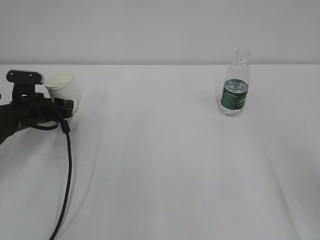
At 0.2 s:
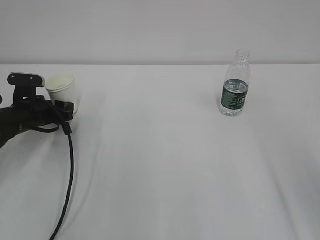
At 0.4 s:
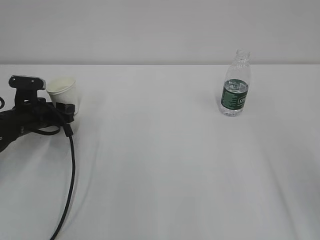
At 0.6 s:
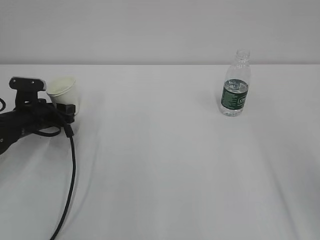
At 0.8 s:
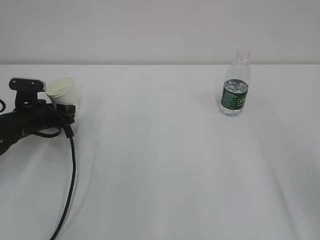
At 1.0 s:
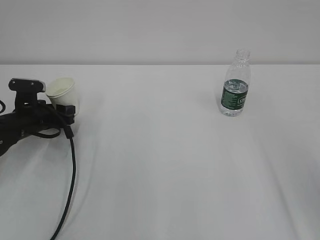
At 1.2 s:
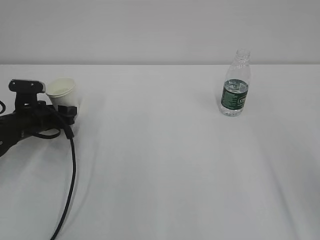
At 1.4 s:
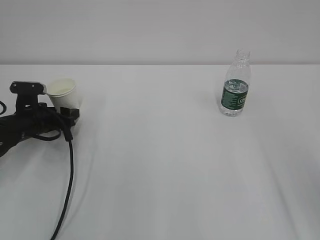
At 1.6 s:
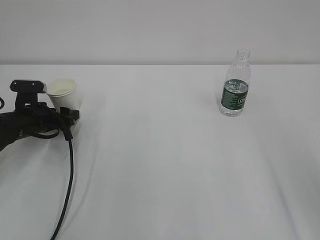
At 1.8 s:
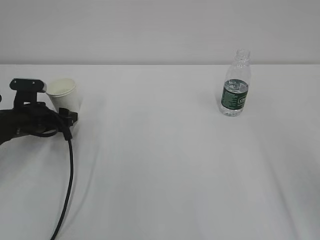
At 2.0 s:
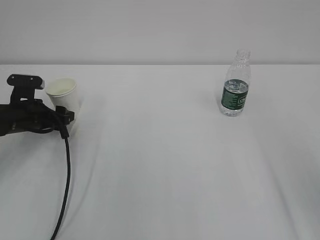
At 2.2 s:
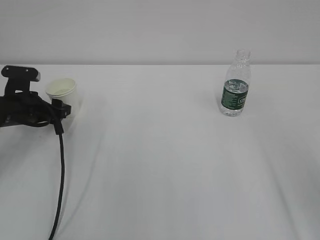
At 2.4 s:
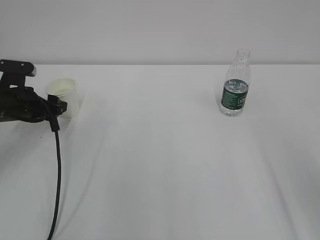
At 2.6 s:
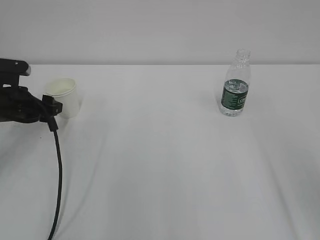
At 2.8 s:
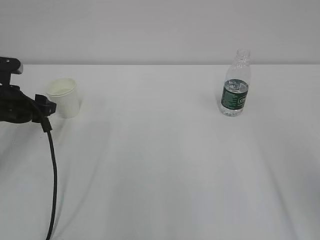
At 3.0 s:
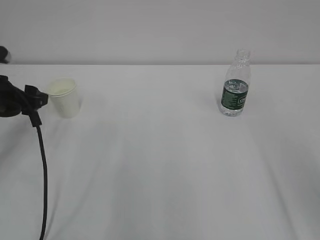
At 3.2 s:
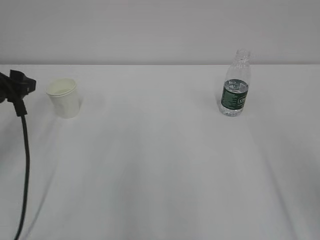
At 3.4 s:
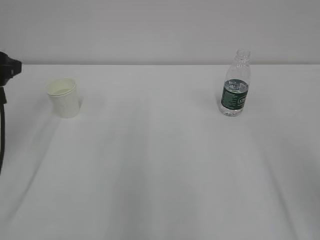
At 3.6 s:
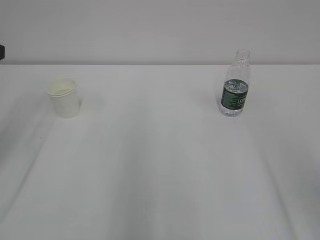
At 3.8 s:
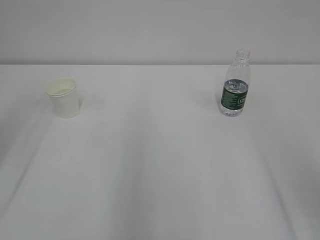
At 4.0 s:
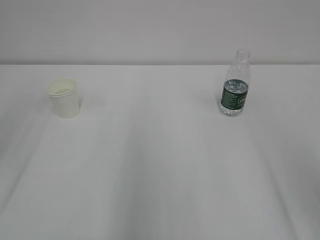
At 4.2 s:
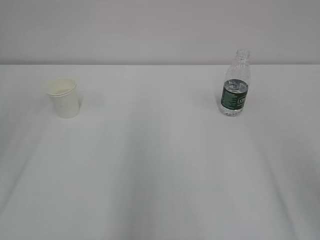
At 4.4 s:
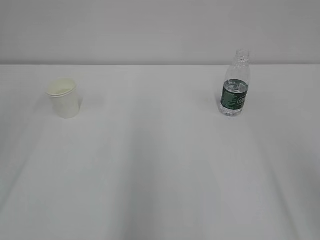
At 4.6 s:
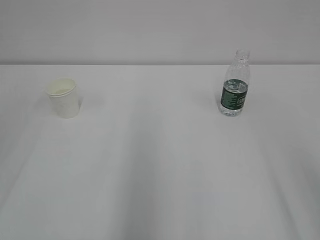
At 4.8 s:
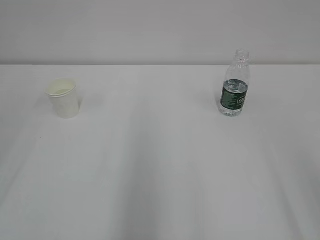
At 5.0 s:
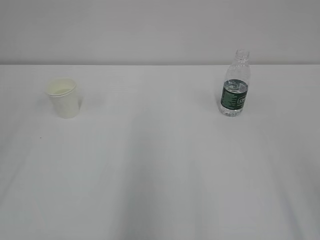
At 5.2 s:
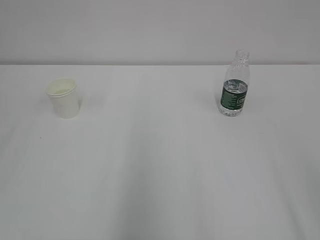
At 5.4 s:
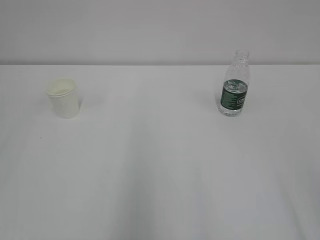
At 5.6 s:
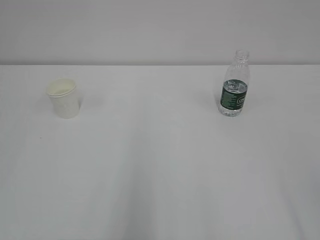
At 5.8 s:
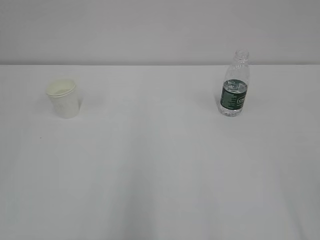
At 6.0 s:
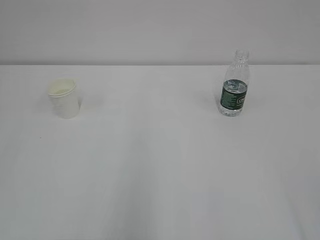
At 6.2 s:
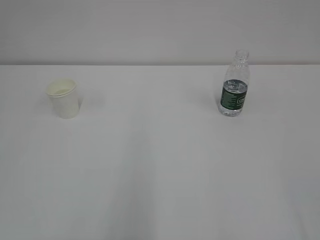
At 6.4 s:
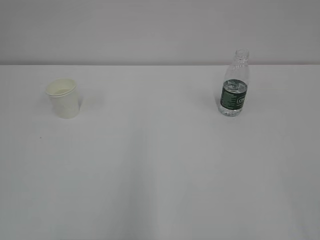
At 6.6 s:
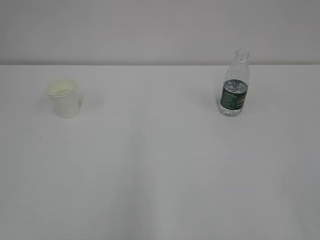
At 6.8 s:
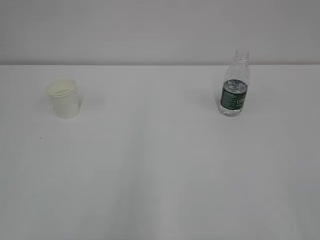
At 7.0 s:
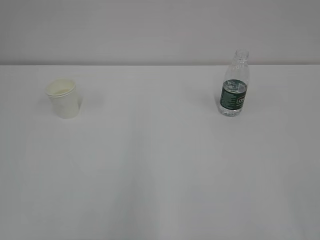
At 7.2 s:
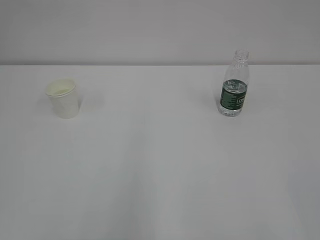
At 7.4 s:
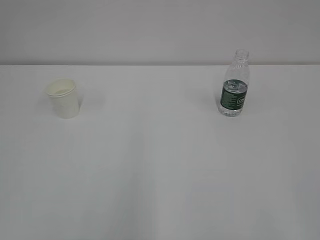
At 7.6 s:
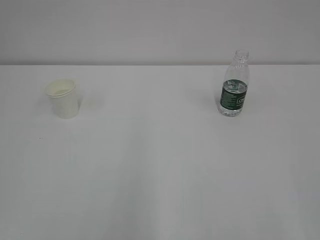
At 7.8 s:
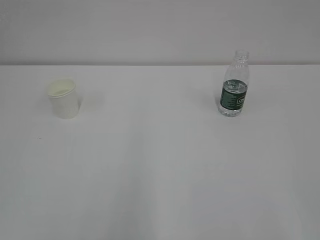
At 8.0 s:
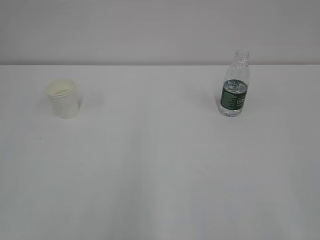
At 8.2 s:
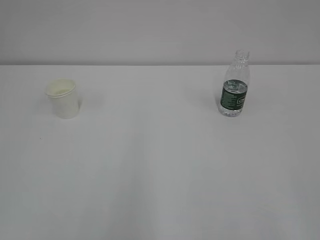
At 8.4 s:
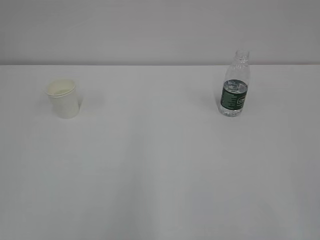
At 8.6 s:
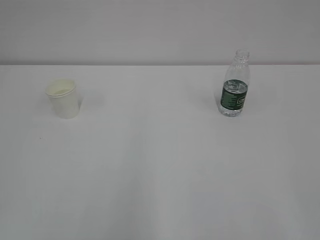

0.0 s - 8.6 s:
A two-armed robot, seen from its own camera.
0.0 s - 1.4 s: The left gripper opens.
1.4 s - 2.8 s: The left gripper is displaced upward by roughly 10 cm.
2.8 s - 4.4 s: The left gripper goes about 25 cm upward and backward.

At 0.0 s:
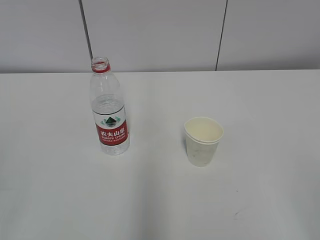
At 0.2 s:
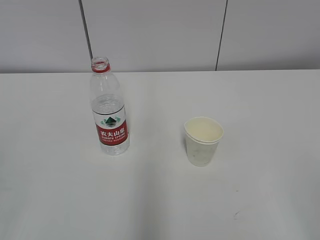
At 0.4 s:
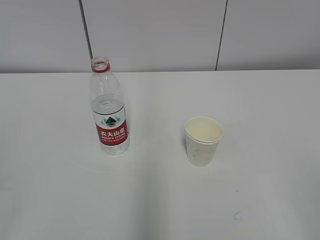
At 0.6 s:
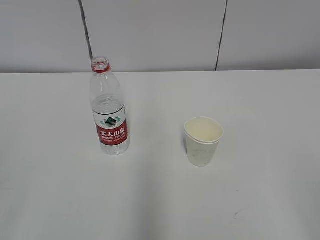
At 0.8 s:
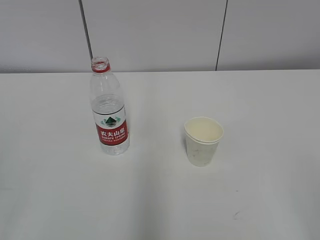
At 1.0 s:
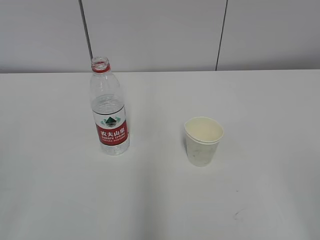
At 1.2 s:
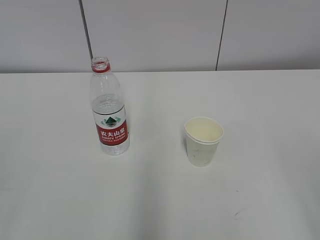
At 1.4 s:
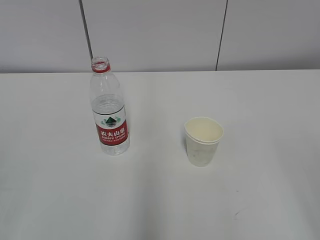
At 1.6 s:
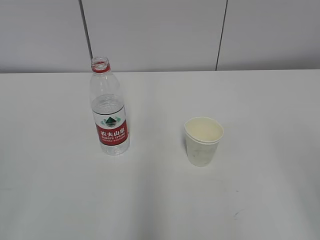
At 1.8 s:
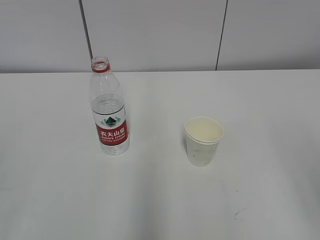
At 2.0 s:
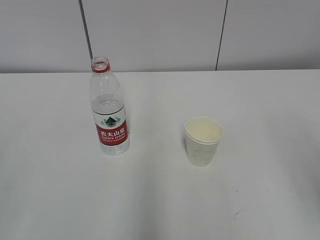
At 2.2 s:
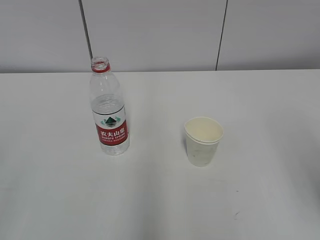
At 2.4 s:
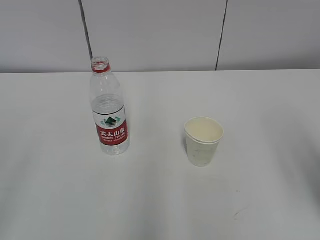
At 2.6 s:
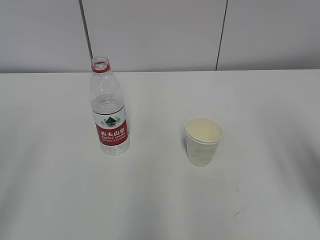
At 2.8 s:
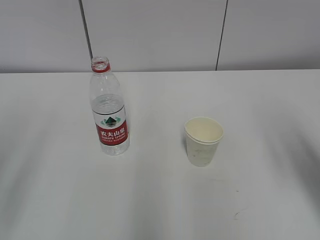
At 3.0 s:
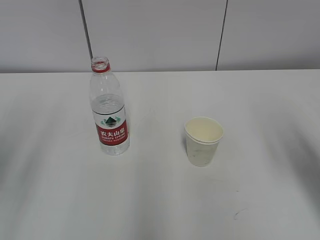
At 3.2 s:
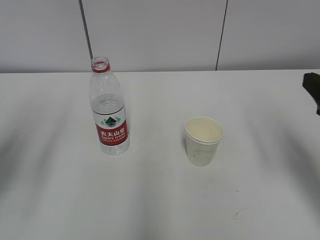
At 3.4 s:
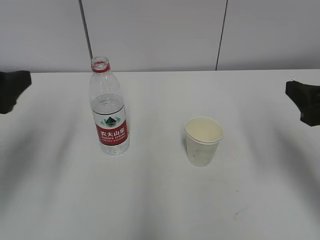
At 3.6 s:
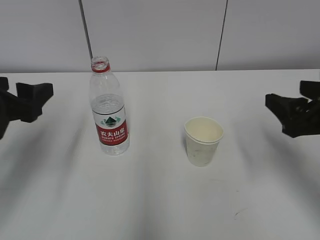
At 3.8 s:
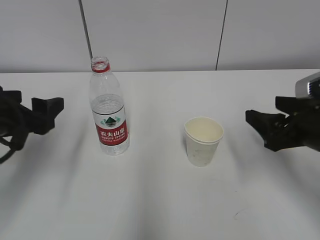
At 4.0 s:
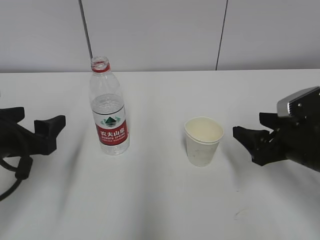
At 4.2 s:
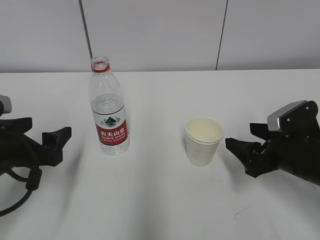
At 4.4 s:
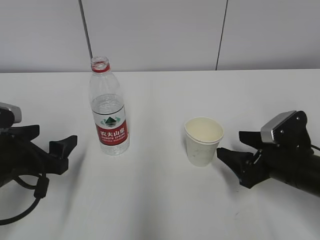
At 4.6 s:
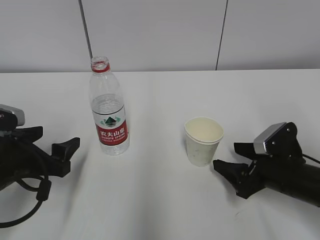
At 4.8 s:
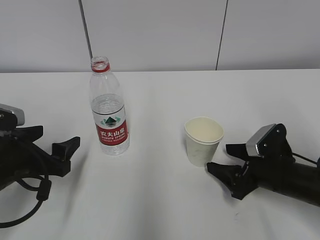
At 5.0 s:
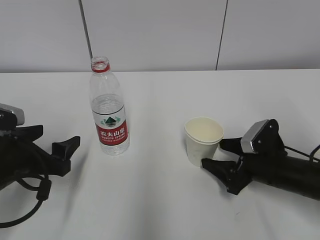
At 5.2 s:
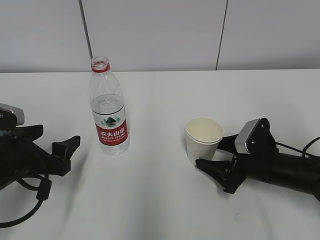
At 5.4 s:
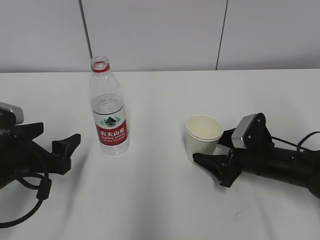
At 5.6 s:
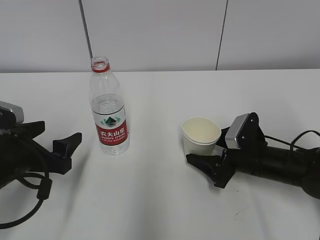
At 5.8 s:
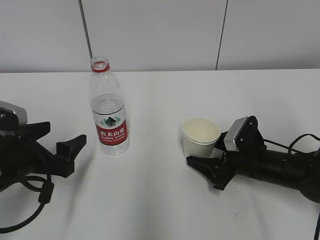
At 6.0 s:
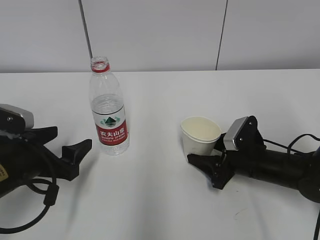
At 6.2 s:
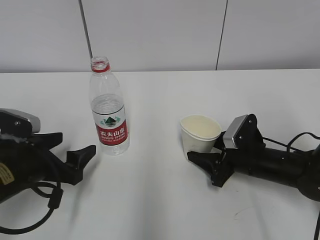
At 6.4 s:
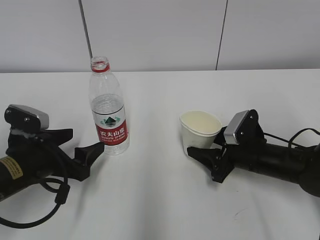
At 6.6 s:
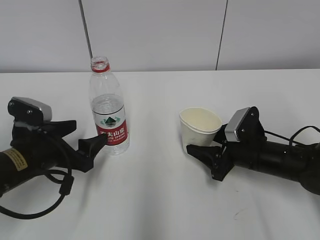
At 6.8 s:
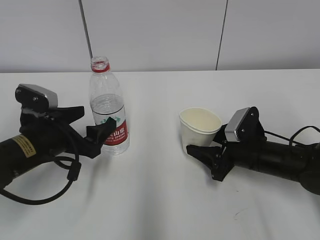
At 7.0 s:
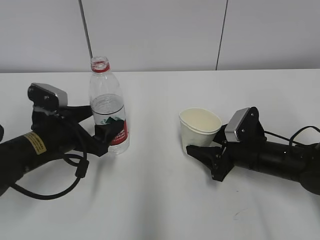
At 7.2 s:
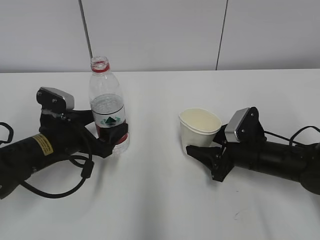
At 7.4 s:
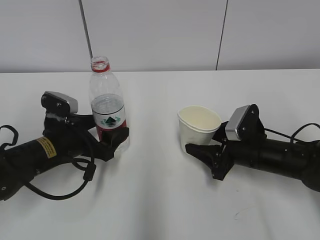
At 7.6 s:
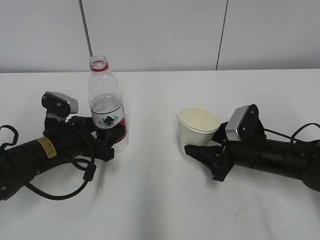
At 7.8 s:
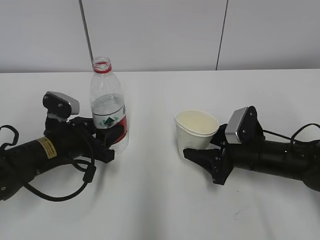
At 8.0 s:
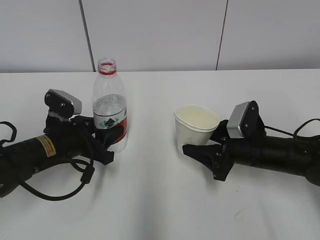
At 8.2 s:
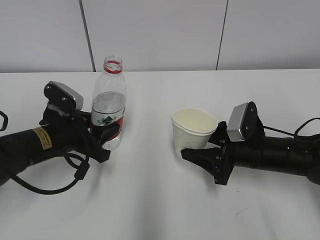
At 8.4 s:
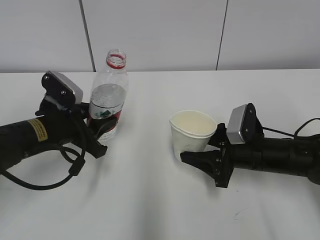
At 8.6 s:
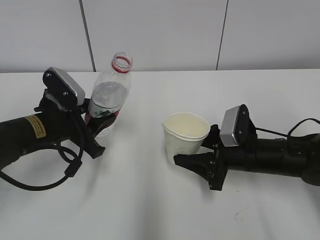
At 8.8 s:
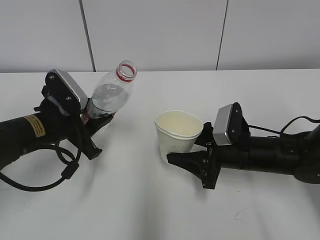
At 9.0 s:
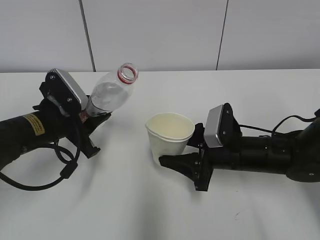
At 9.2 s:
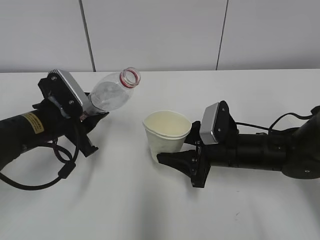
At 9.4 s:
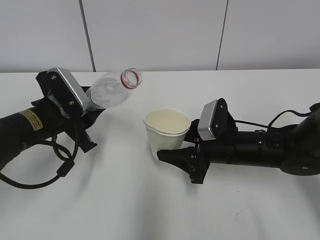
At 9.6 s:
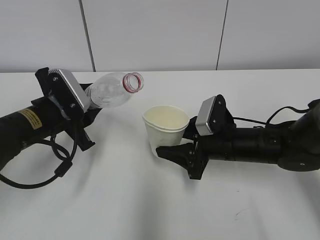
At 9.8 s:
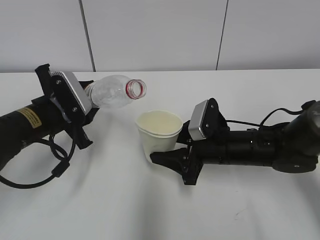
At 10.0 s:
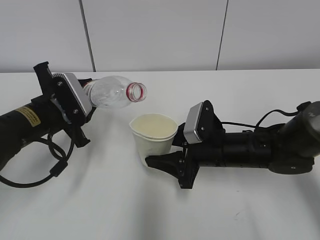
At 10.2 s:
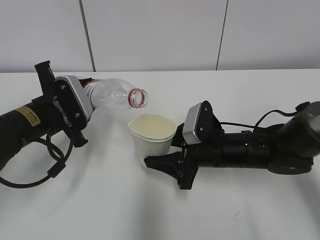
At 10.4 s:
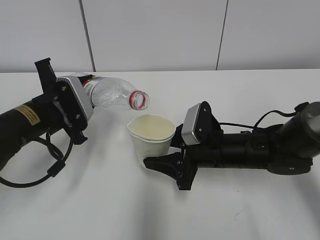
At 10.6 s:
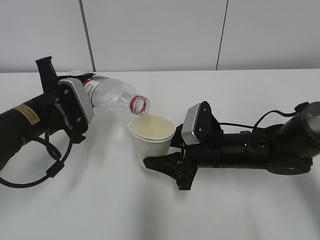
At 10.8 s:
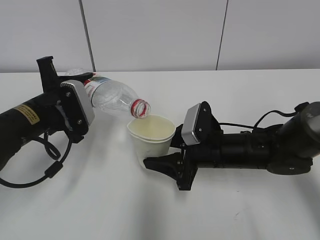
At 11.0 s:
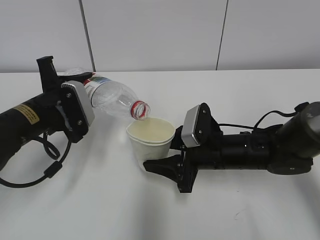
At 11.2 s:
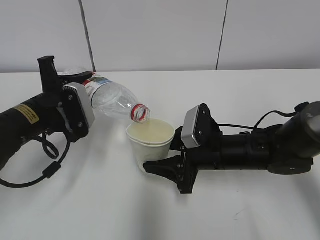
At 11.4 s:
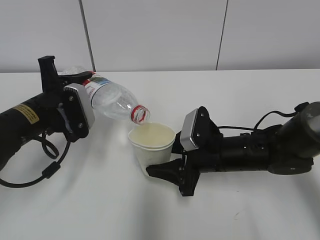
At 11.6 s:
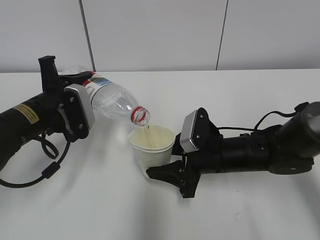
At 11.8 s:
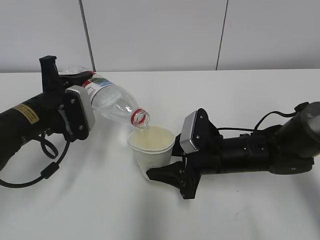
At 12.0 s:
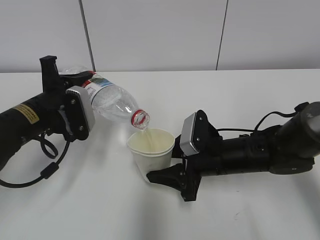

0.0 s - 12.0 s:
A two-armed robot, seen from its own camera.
Step, 0.0 s - 5.0 s: Grab the paper cup with the right hand.
Step, 5.2 s - 6.4 s: Grab the water bottle with the left hand.
Step, 6.6 s - 9.4 s: Lift the paper cup with the right hand.
1.6 s - 3.0 s: The right gripper heads forward, covering approximately 15 cm.
3.0 s - 4.4 s: Both grippers move downward and forward, approximately 20 cm.
4.4 s - 6.0 s: The right gripper shifts about 5 cm forward and downward, and closes up.
6.0 s - 7.6 s: The left gripper goes some 5 cm forward.
7.6 s - 9.0 s: The right gripper shifts by approximately 5 cm. Meanwhile the left gripper heads upward, covering some 5 cm, and closes up.
10.4 s - 12.0 s: There are only small adjustments of the grippers.

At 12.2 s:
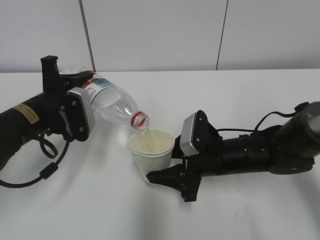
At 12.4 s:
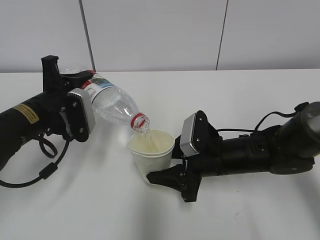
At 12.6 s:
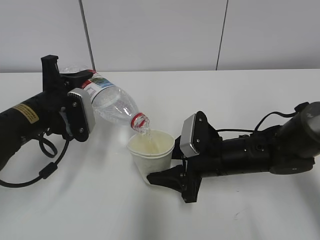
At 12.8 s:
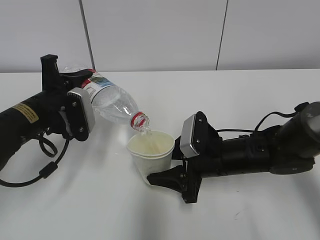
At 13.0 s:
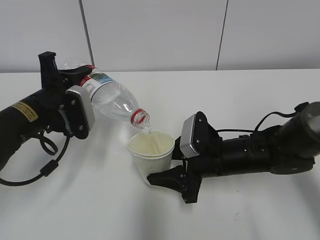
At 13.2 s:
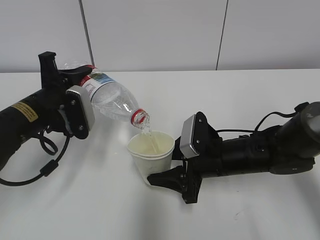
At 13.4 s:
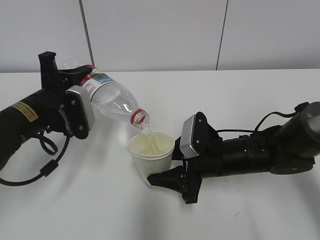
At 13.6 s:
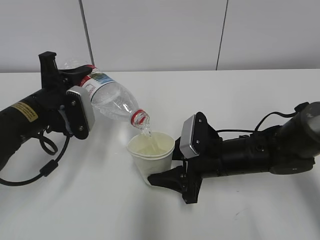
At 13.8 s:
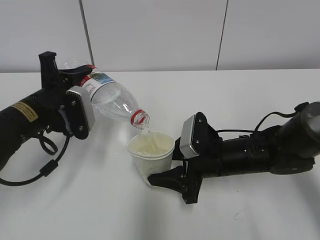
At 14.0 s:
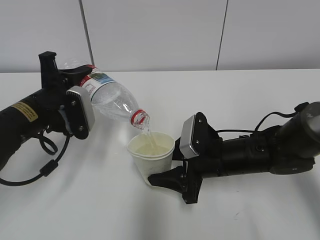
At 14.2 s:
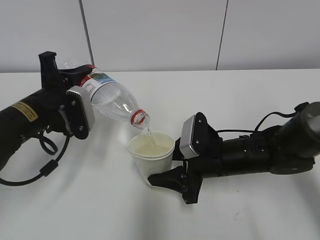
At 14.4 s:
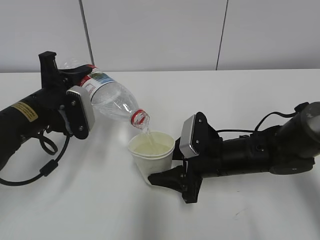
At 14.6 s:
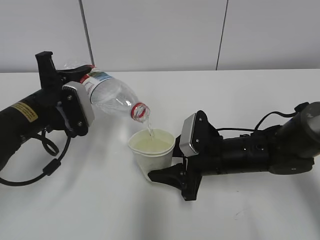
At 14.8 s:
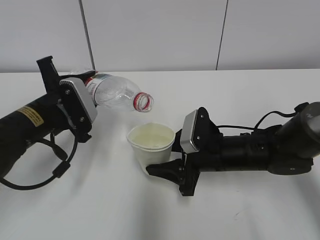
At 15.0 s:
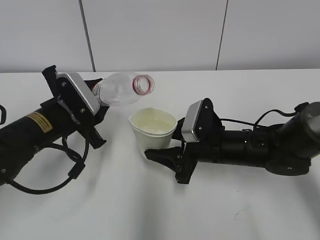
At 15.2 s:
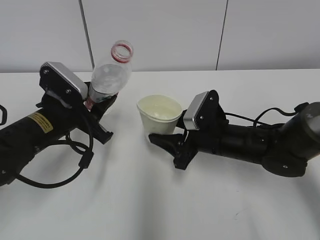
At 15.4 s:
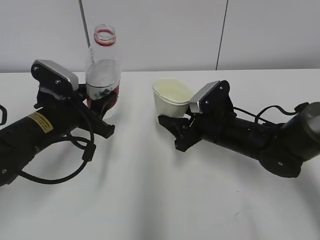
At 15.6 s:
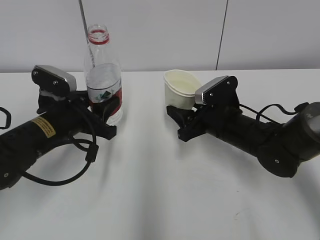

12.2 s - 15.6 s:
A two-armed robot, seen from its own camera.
12.2 s - 13.8 s: Both grippers stay put.
13.8 s - 15.6 s: The right gripper shifts by roughly 5 cm.
